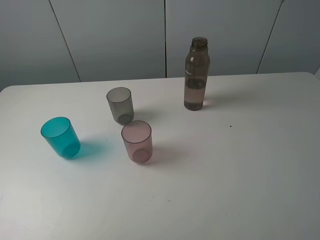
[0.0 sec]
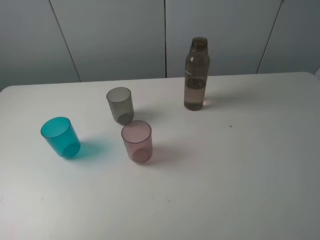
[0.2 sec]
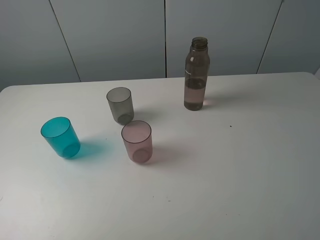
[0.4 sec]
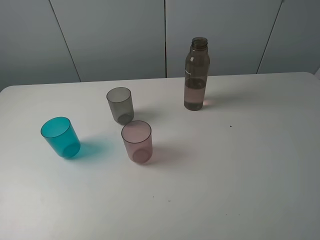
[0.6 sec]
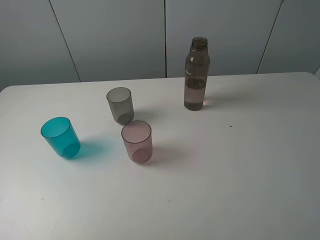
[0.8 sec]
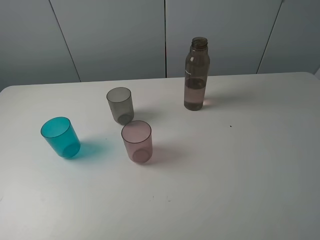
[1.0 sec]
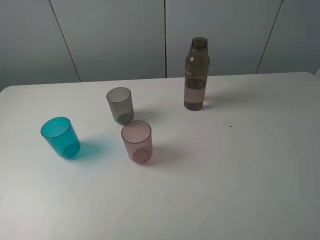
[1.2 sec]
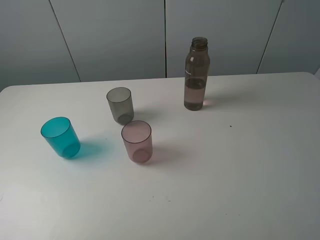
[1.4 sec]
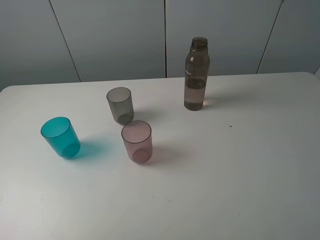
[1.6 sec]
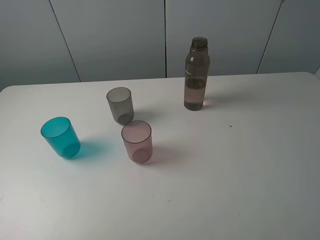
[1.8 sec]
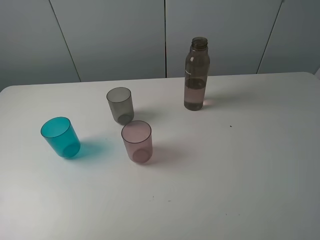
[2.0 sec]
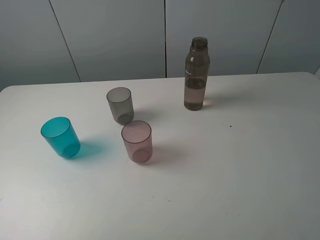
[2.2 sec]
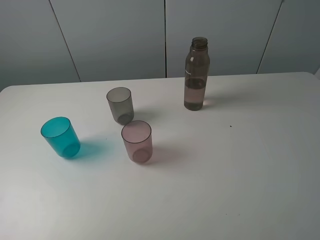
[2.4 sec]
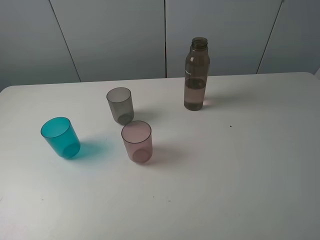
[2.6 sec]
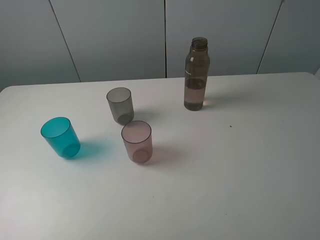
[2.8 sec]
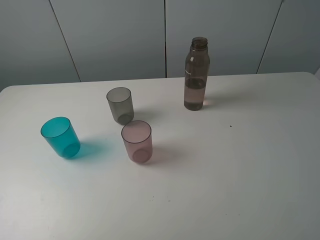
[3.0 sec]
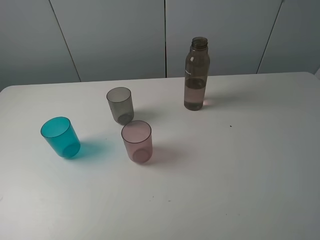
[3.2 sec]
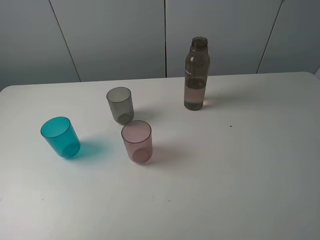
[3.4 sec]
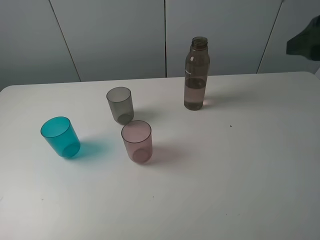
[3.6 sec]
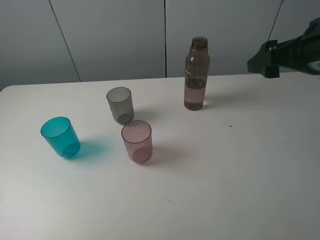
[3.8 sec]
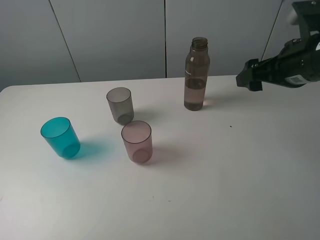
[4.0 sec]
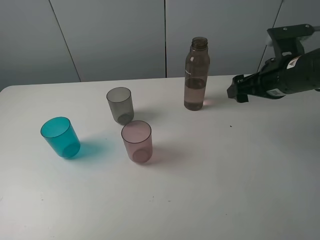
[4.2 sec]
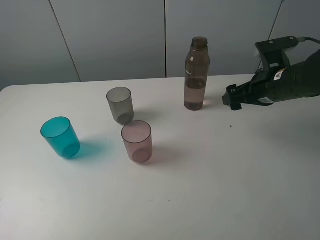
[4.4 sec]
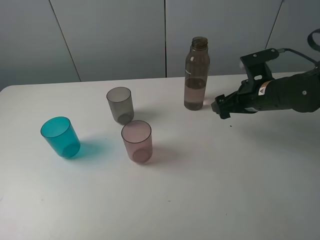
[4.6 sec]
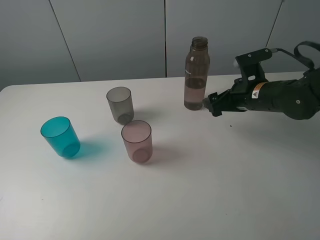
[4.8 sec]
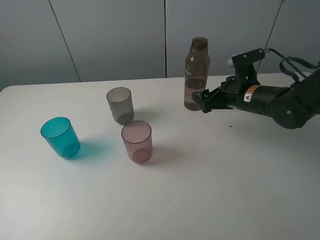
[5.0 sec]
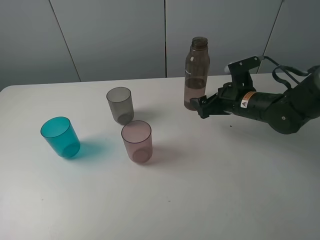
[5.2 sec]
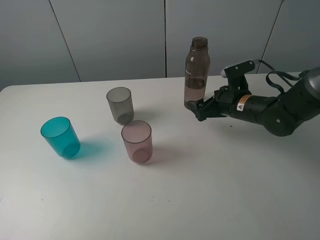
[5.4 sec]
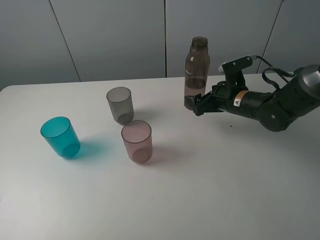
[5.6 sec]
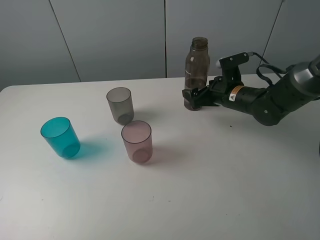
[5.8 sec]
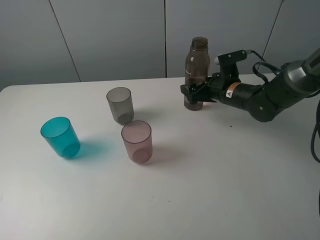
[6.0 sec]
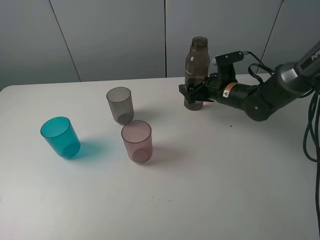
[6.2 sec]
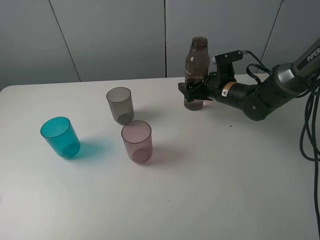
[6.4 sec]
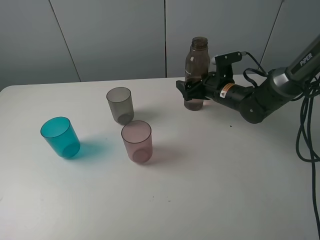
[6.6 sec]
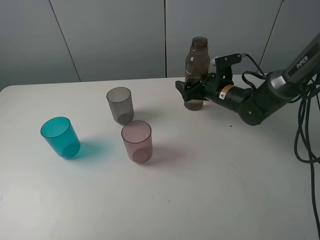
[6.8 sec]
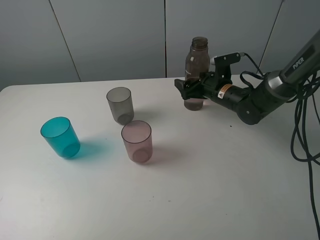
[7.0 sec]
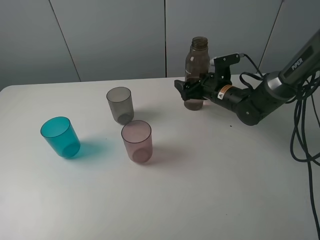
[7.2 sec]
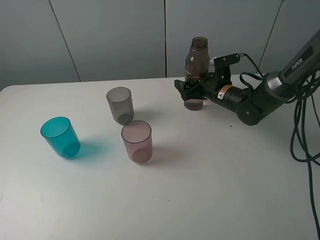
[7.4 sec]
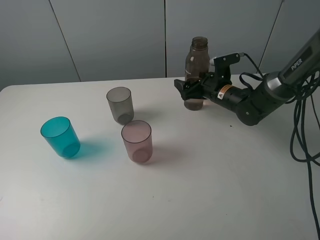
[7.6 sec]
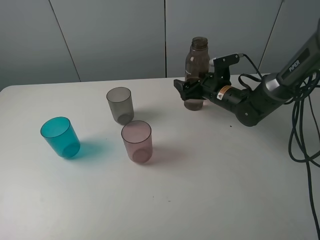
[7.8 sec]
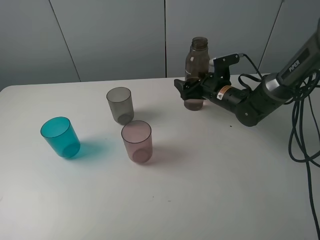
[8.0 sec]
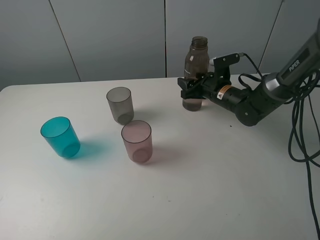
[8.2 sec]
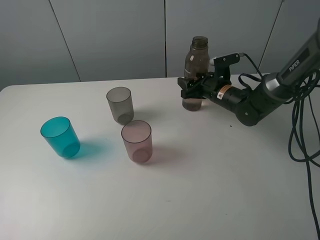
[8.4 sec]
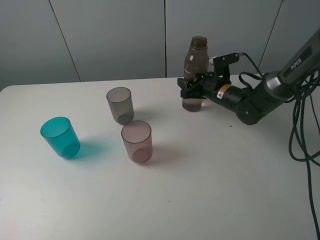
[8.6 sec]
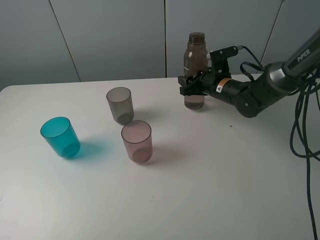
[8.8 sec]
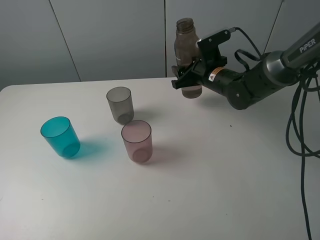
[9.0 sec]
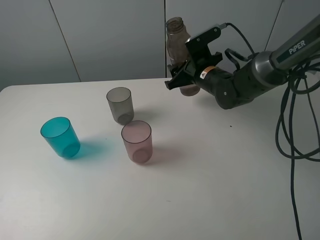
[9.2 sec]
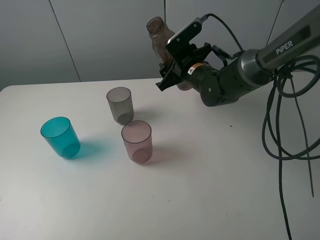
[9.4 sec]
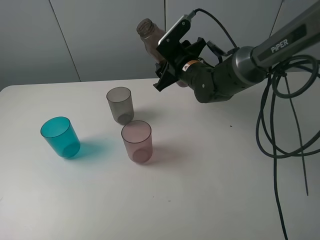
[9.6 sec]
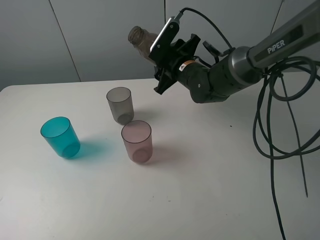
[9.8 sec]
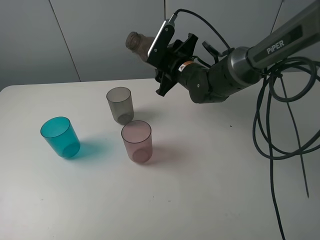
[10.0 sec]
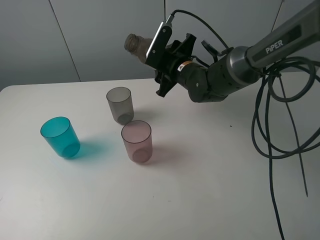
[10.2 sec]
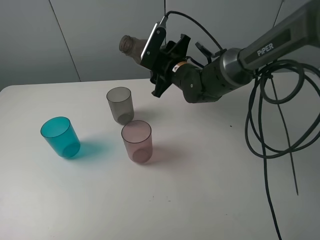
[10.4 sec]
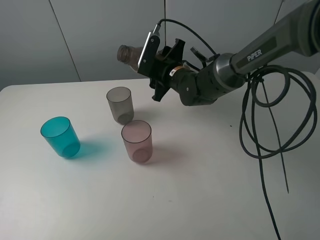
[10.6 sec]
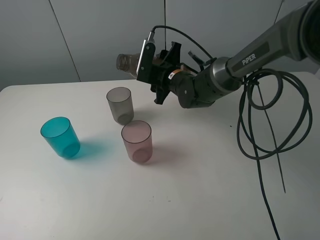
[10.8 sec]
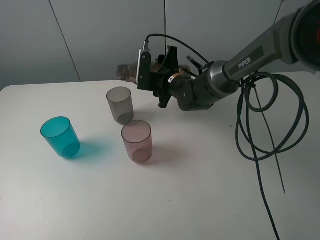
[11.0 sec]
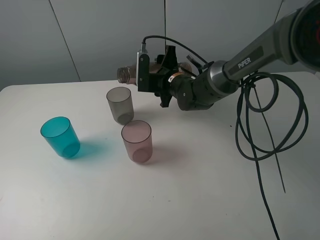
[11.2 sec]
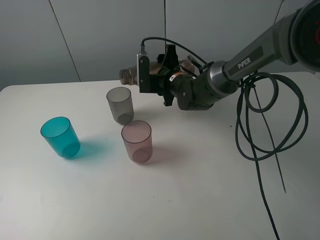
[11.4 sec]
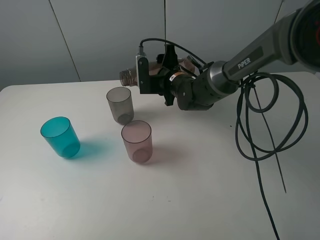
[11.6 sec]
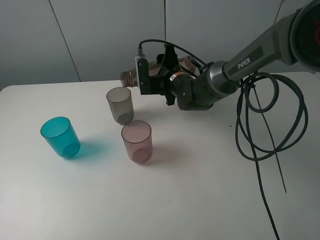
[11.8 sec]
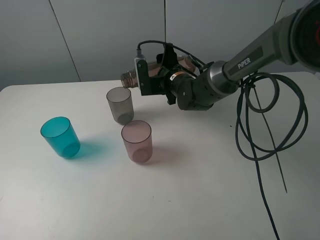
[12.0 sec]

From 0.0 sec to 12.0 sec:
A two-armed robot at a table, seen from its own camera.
Task of the whole recording: pick up the bottle filled with water and pour water into the middle cup of the three cups.
Step, from 0.0 sec to 8.2 sec: Grasp the transparent bottle with the right gripper.
From 0.0 sec to 1.6 sec: Both grippers stay put.
From 3.0 sec to 4.4 sec: The right gripper is displaced forward and downward by approximately 30 cm.
From 4.4 sec to 6.0 sec: The right gripper shifts some 10 cm downward, forward and to the left.
From 6.0 sec to 7.6 sec: There are only small adjustments of the grippers.
From 7.6 sec to 9.0 sec: The right gripper shifts about 5 cm upward, and closes.
From 9.0 sec to 10.4 sec: The right gripper travels to the left by about 10 cm.

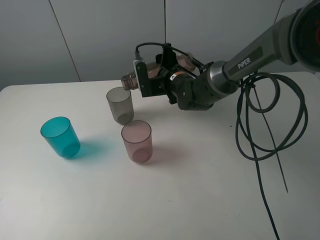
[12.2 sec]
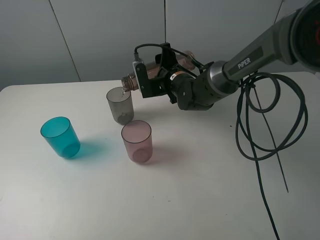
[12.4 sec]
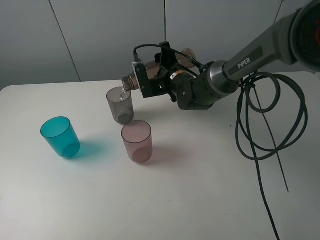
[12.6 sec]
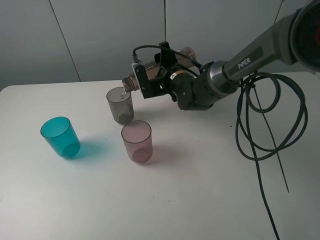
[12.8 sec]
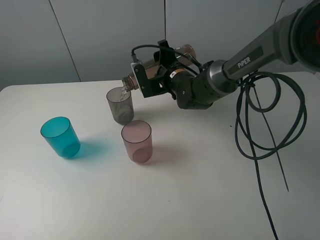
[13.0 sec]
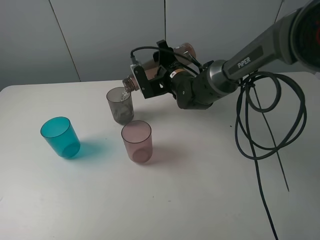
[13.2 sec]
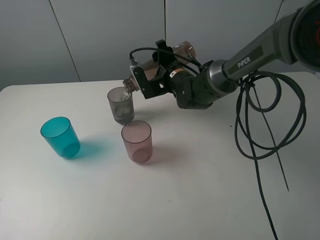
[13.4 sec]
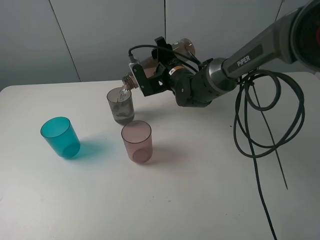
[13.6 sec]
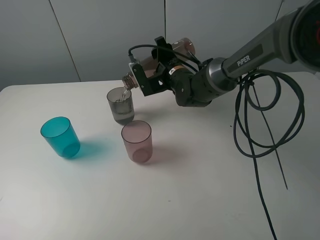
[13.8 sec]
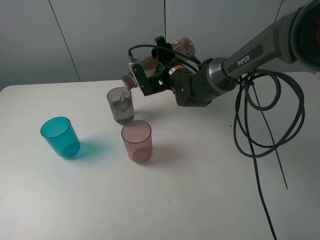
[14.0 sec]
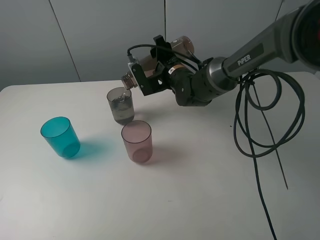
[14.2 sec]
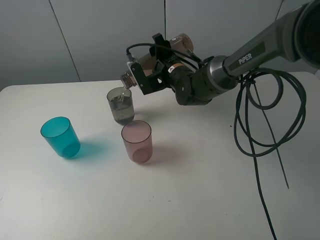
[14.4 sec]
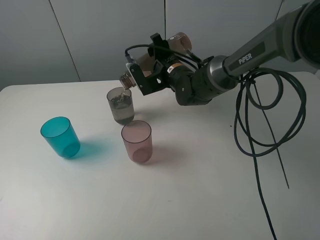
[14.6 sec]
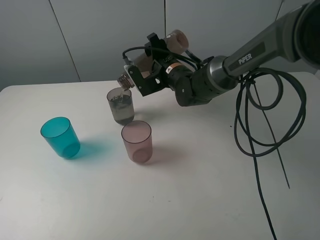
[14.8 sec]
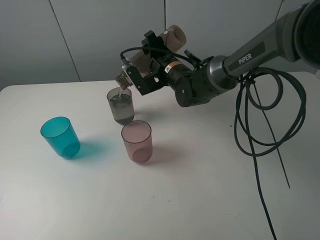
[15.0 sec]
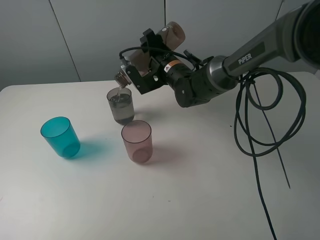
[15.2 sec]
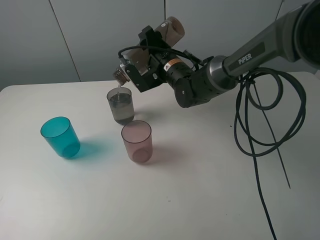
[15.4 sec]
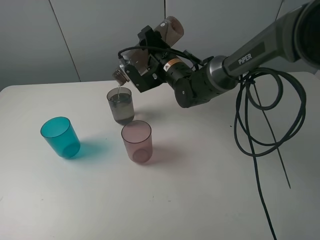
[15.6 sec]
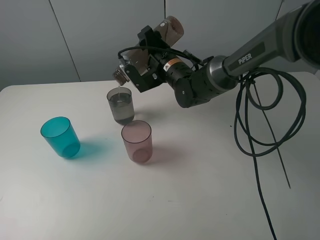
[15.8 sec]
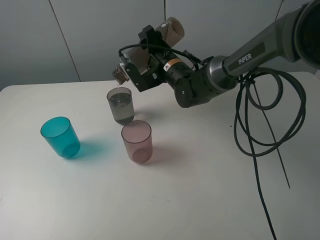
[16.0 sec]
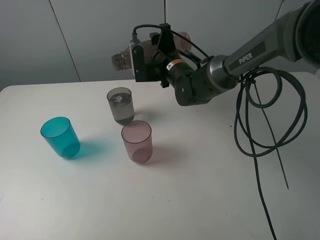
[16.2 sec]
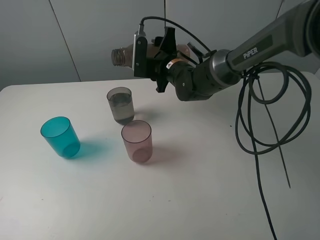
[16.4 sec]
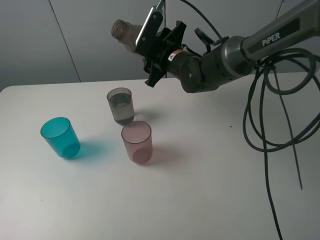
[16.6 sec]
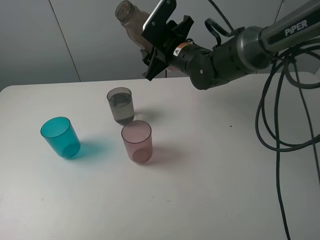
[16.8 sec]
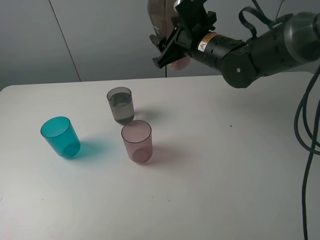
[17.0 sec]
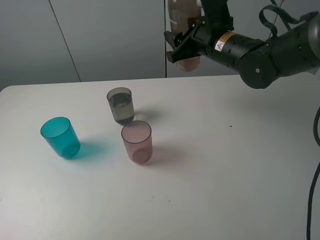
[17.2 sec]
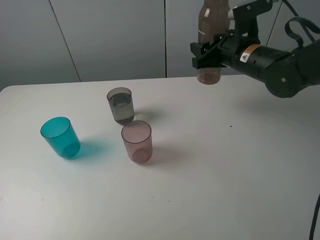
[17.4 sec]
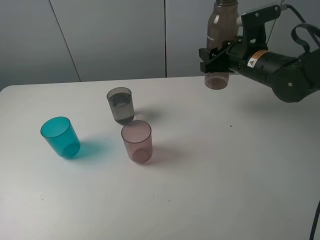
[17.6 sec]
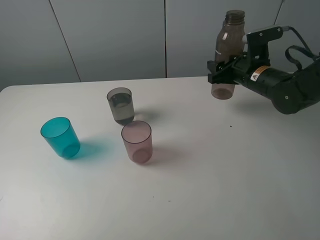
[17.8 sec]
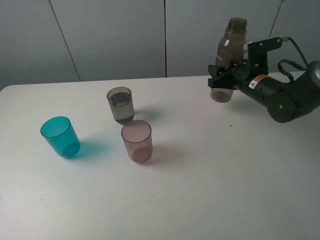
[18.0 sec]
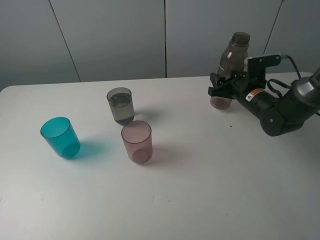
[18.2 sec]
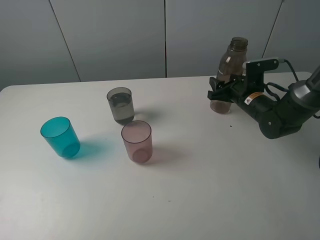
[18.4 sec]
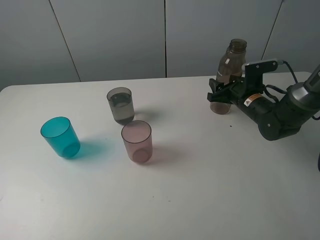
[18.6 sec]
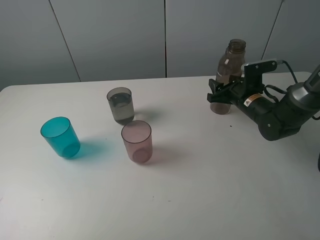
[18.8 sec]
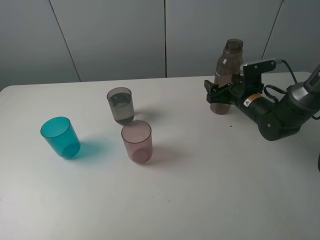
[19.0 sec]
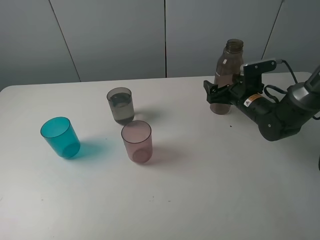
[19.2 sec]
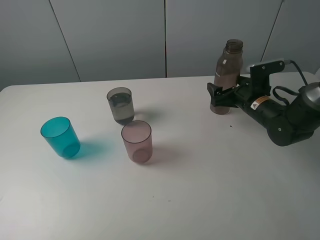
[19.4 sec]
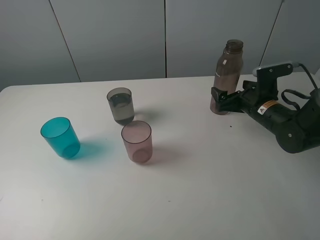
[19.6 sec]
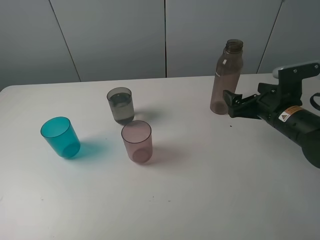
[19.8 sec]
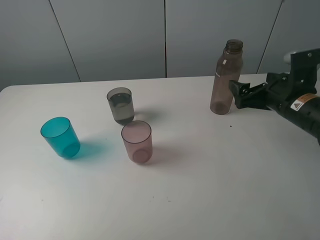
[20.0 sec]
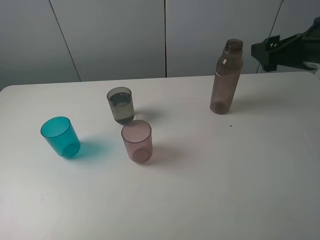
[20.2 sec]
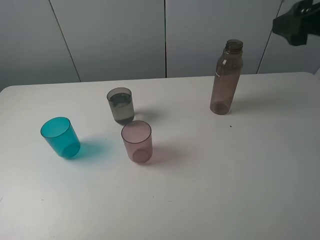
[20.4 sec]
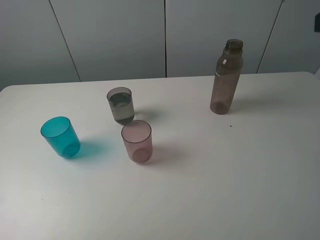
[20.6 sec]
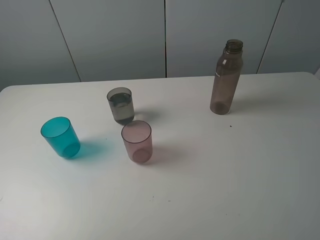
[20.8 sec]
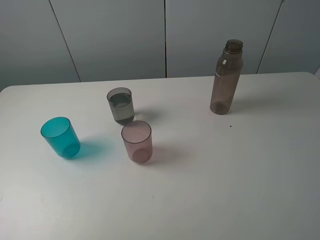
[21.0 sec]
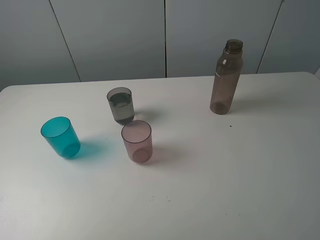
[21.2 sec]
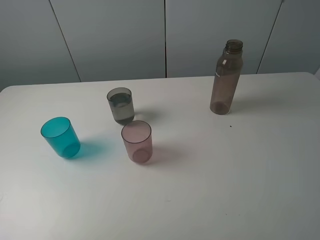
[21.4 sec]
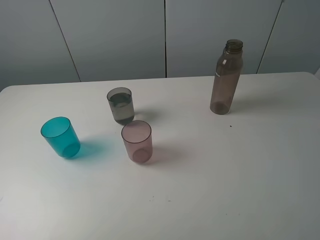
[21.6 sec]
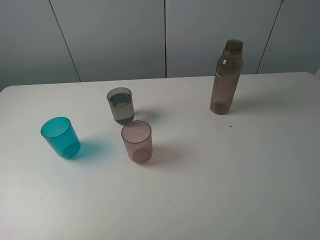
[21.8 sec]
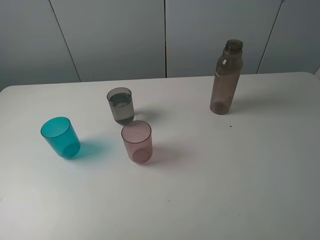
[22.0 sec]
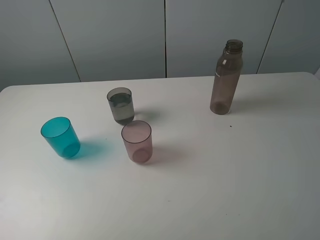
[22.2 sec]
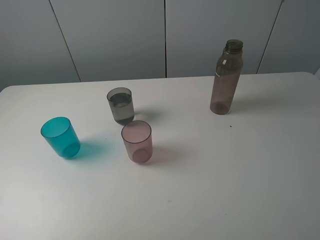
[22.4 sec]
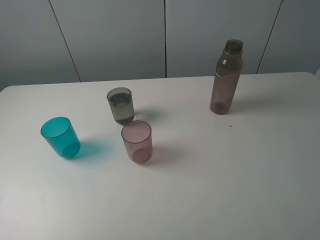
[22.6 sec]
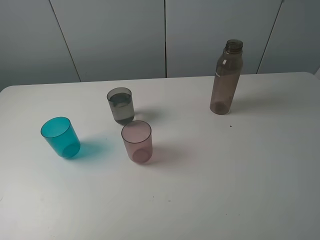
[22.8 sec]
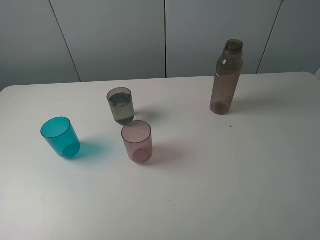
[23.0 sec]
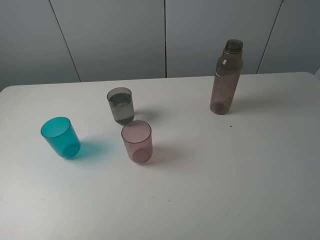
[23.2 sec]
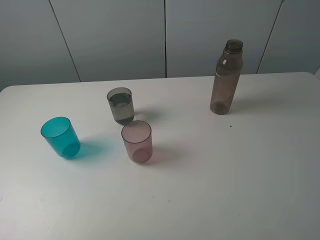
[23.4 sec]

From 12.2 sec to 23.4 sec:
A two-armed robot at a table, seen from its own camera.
Task of the whole recording: pick up the bottle filled with water and pour water into the middle cup of the three cups.
Step, from 12.4 sec to 20.4 sec: Place the transparent bottle with the right gripper.
From 12.2 sec to 13.8 sec: There are only small adjustments of the grippers.
From 13.8 sec to 15.4 sec: The grippers make only small movements.
From 15.4 sec to 17.0 sec: The right gripper heads upward and to the right, covering roughly 10 cm.
From 17.0 sec to 18.6 sec: The right gripper shifts about 20 cm downward and to the right.
From 18.6 sec to 20.2 sec: The right gripper is displaced upward and backward by roughly 25 cm, and opens up.
From 20.2 sec to 21.8 sec: The right gripper moves backward, some 25 cm.
